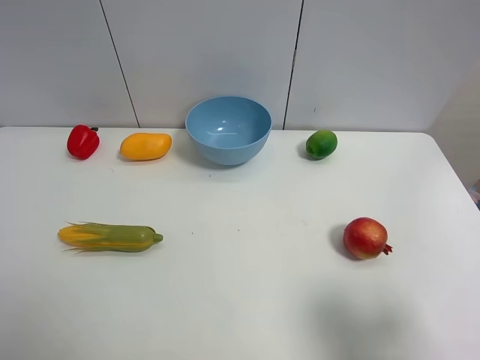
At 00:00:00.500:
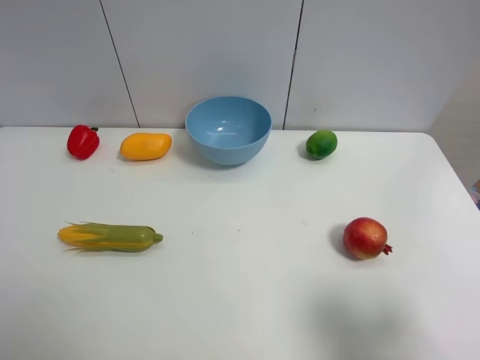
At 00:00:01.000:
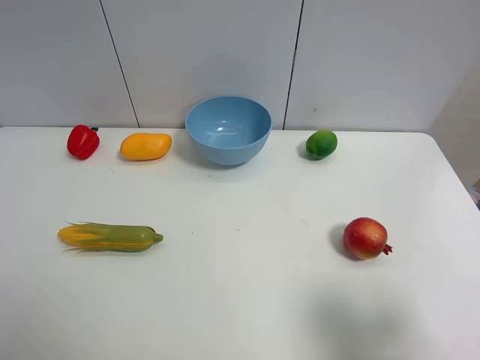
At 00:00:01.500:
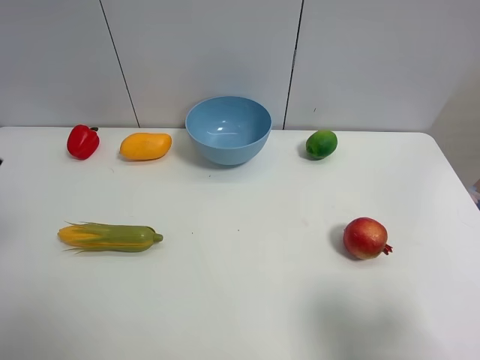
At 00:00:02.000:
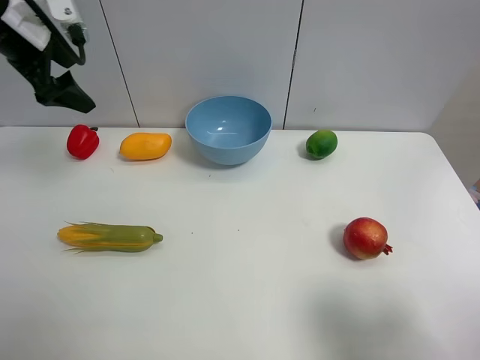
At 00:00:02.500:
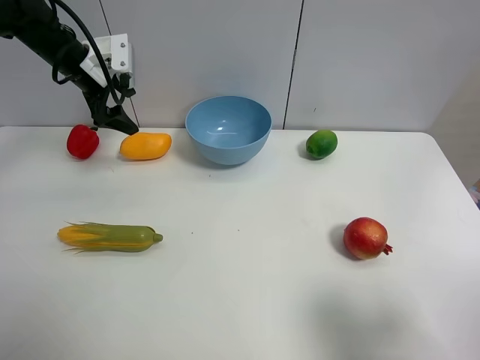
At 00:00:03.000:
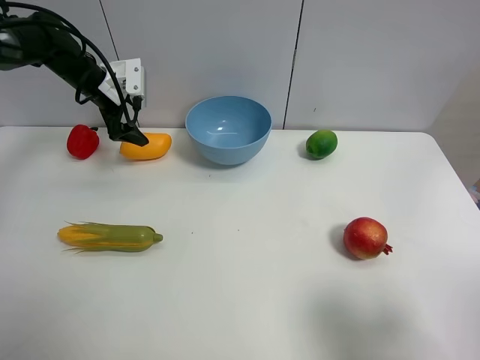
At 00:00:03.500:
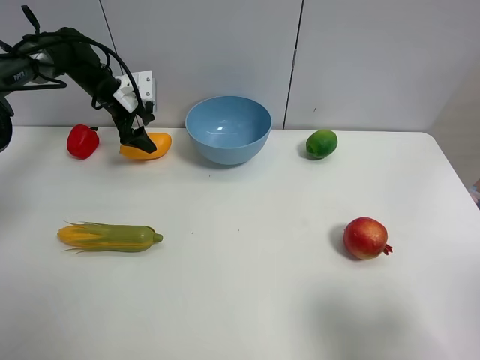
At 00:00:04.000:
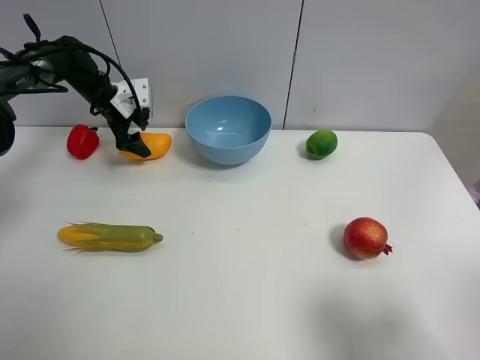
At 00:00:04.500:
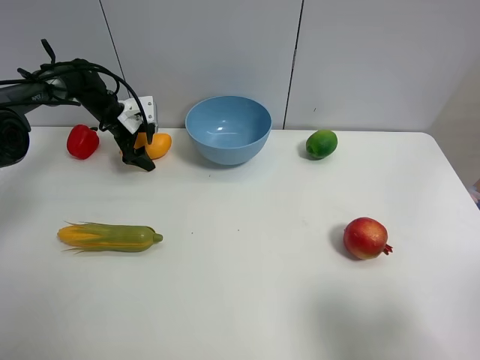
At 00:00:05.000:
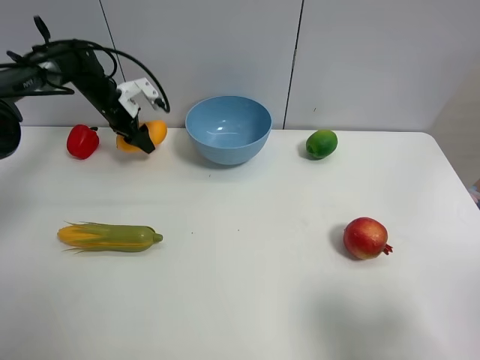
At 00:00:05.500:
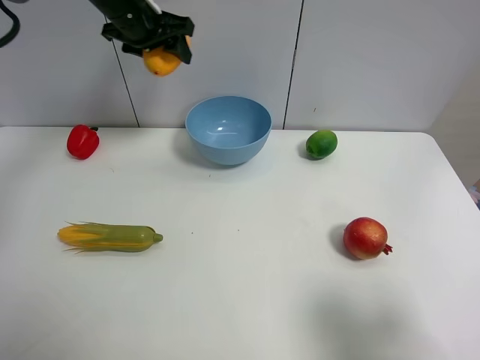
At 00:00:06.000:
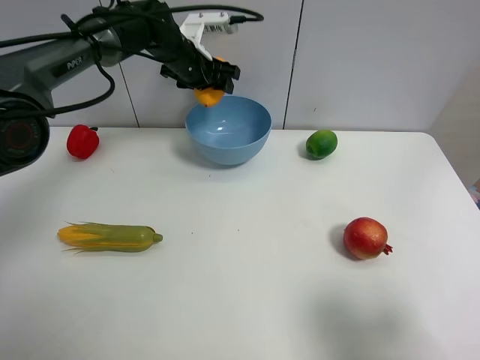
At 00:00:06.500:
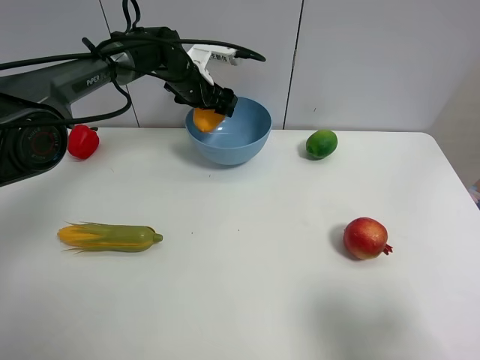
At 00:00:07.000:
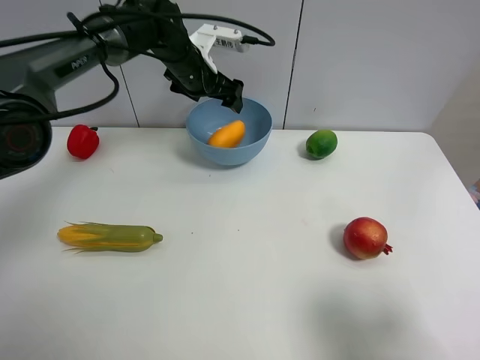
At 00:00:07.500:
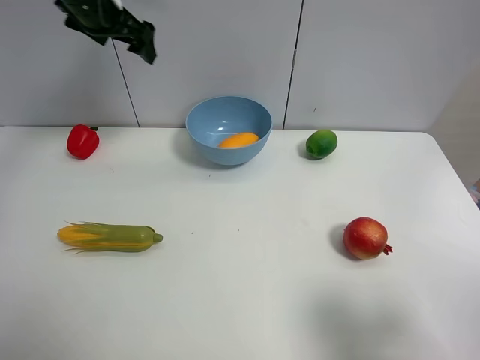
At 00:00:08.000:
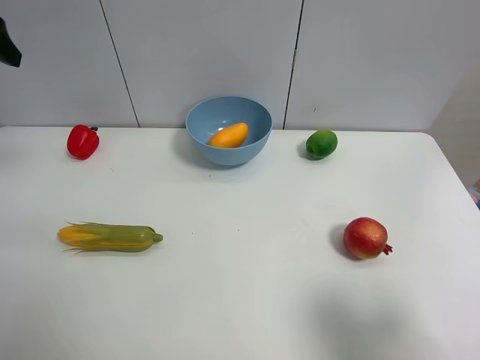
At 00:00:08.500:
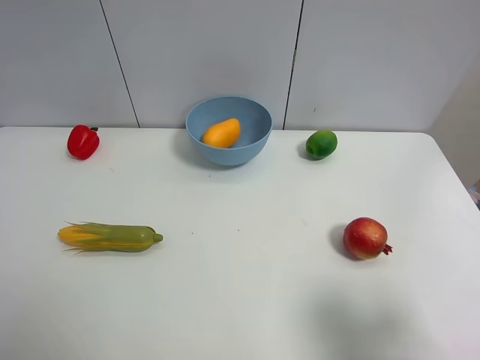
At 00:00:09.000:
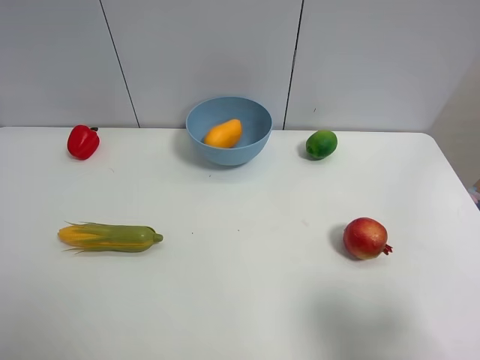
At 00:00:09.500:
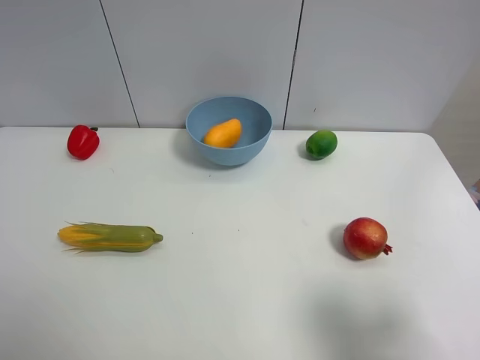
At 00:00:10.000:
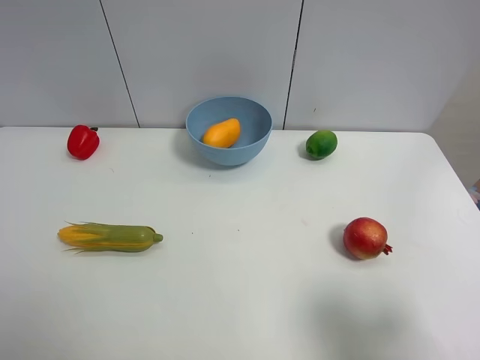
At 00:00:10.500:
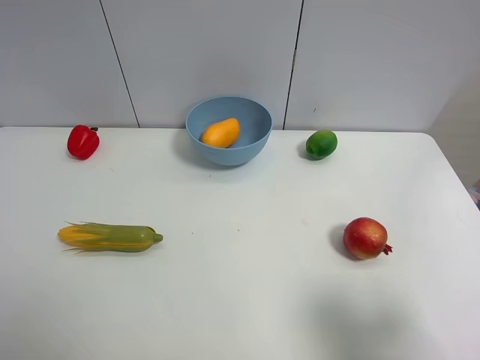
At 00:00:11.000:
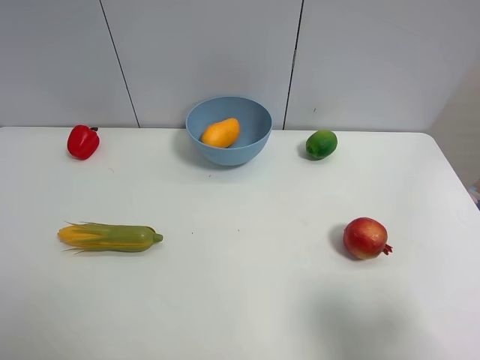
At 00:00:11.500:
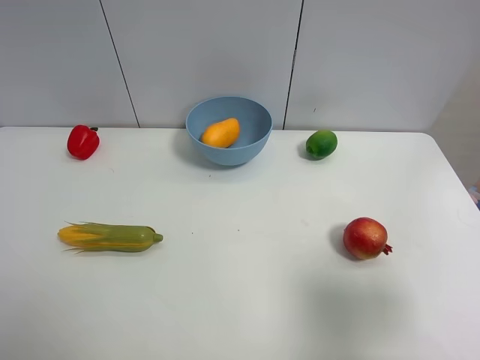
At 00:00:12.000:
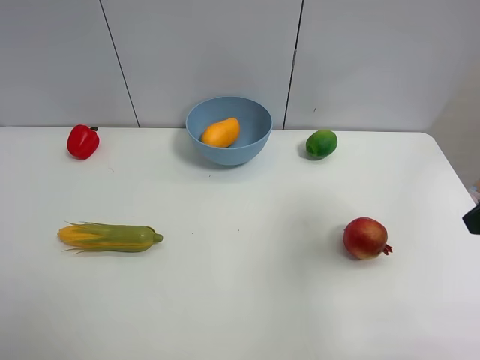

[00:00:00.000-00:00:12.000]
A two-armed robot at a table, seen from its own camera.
Task of the whole recording: Put the three fruits on the table into a bowl.
Step, 00:00:00.000 to 00:00:04.500: Grasp the mango with left gripper.
Step, 00:00:05.000 to 00:00:06.500: Place the mango in the blue bowl with left gripper.
00:00:00.000 to 00:00:02.000: The left gripper goes roughly 40 cm forward.
00:00:02.000 to 00:00:04.000: The left gripper heads downward and forward, covering approximately 25 cm.
00:00:04.000 to 00:00:06.000: The left gripper goes up and down, approximately 25 cm each way, reversing 2 times, and closes its fingers.
00:00:06.000 to 00:00:08.000: The left gripper moves to the left, backward and upward, roughly 35 cm, and opens its fingers.
00:00:08.000 to 00:00:10.000: The left gripper moves backward, some 30 cm.
00:00:10.000 to 00:00:12.000: The right gripper heads forward, covering some 15 cm.

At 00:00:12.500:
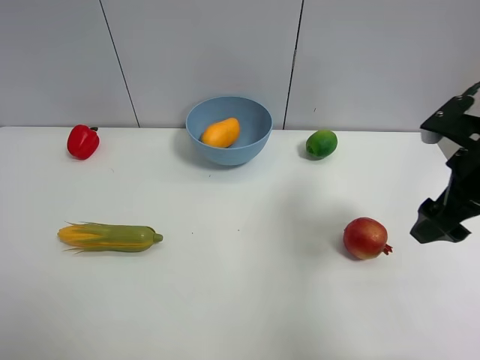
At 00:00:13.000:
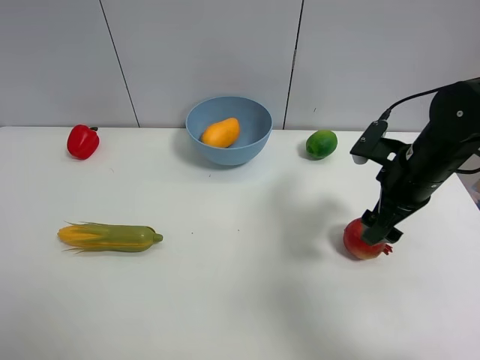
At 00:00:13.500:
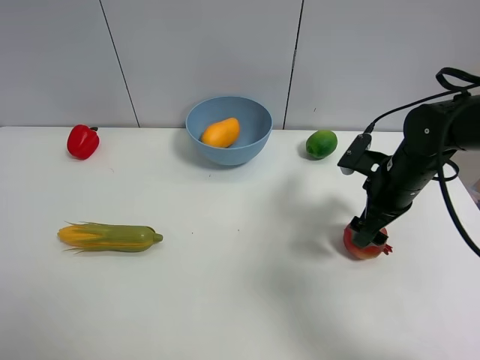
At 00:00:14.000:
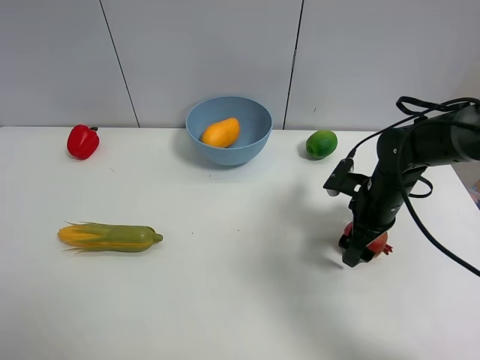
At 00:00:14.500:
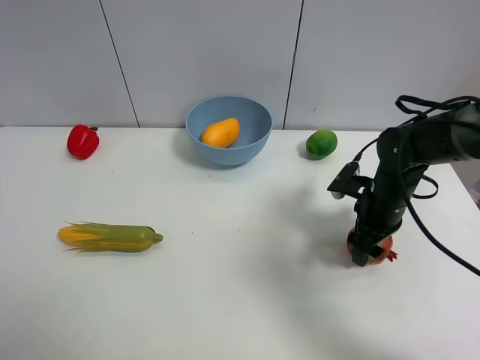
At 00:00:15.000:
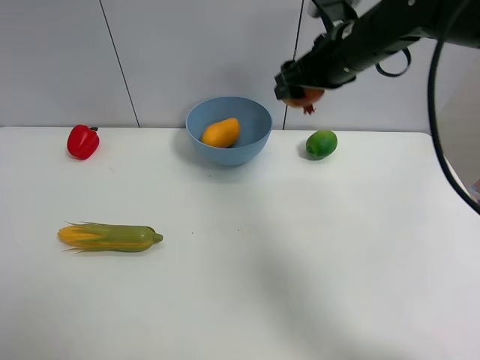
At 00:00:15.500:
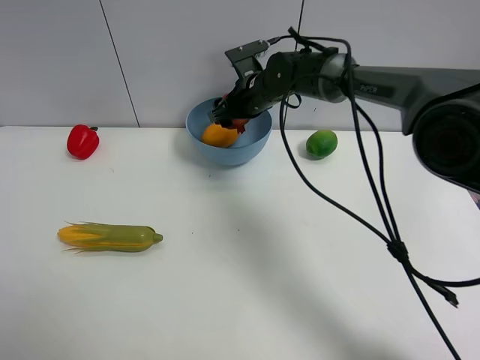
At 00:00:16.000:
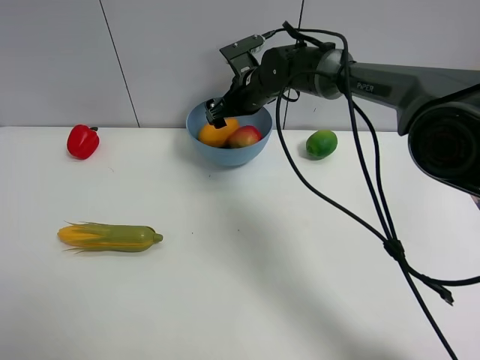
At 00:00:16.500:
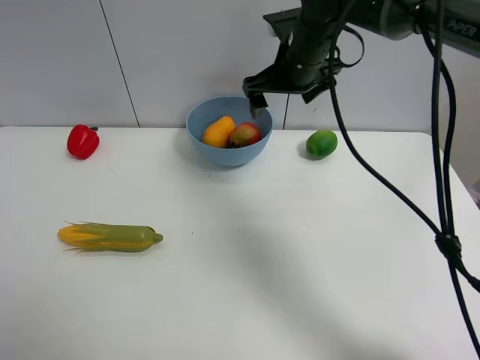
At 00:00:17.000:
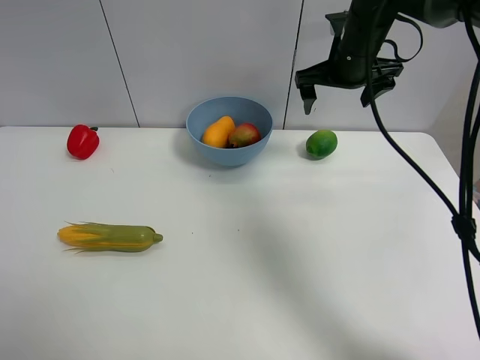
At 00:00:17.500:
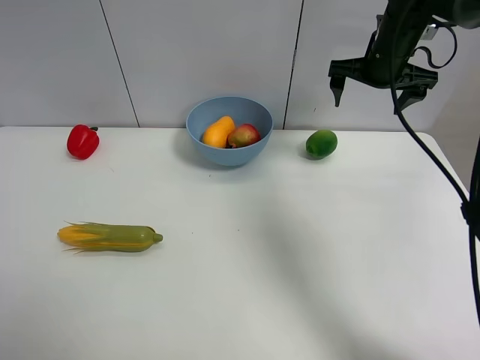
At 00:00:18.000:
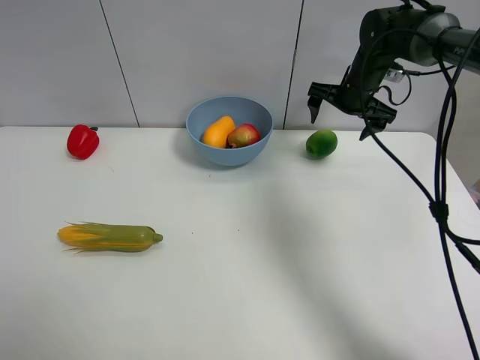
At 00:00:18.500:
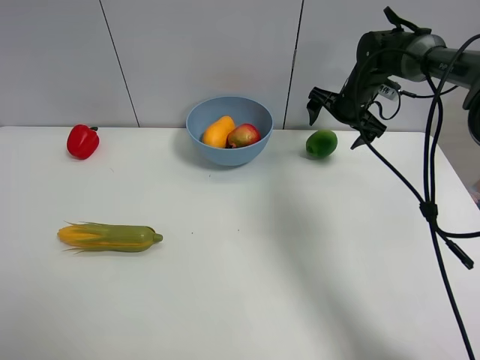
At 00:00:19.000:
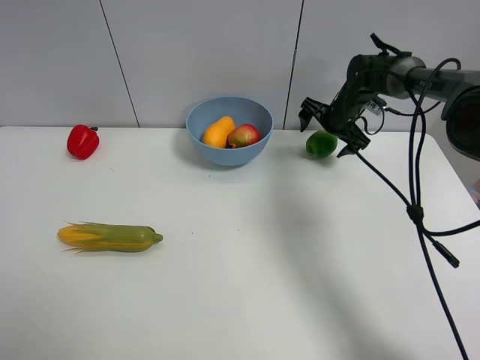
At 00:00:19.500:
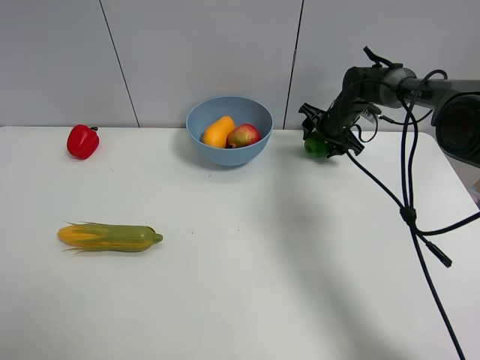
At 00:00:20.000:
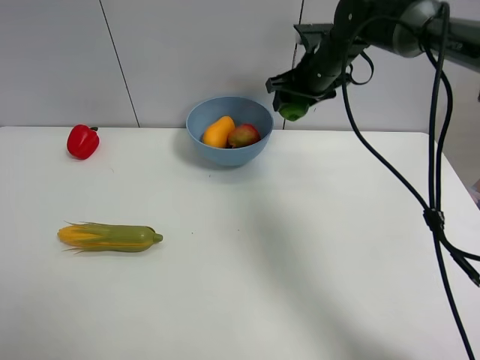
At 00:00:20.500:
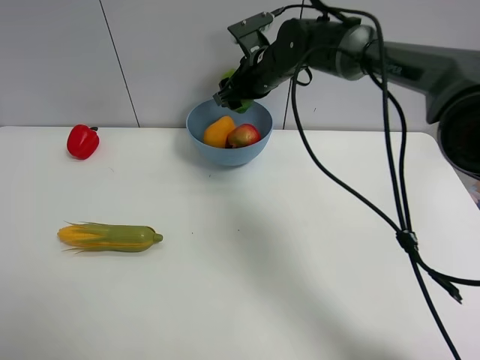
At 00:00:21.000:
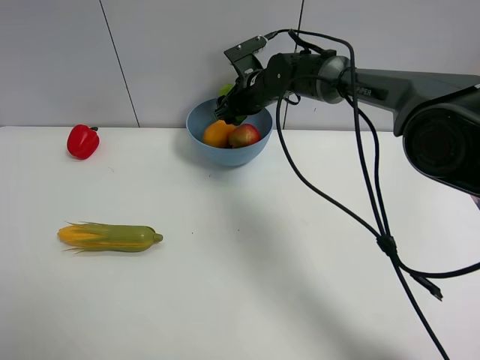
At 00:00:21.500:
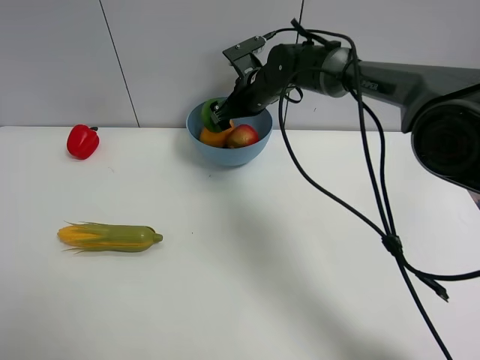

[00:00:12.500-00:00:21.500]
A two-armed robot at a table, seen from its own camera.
Task of the whole recording: Put the three fruits on the table into a bowl.
Step, 00:00:14.500 to 00:00:16.000: Place the pomegranate in the blue bowl with right gripper.
Step, 00:00:16.500 to 00:00:19.000: Grasp the green lemon with right gripper.
00:00:12.500 to 00:00:14.500: The right gripper heads downward and forward, covering about 15 cm, and closes its fingers.
00:00:14.500 to 00:00:17.000: The right gripper travels upward and forward by roughly 20 cm, travels to the left and back again, roughly 20 cm each way, and opens its fingers.
00:00:17.000 to 00:00:19.500: The right gripper is displaced downward and forward by about 20 cm, and closes.
00:00:19.500 to 00:00:21.500: The right gripper shifts about 20 cm to the left and upward, and opens up.

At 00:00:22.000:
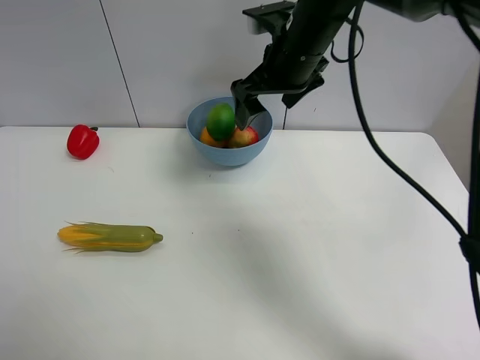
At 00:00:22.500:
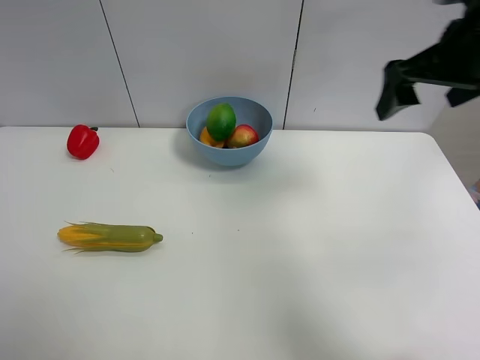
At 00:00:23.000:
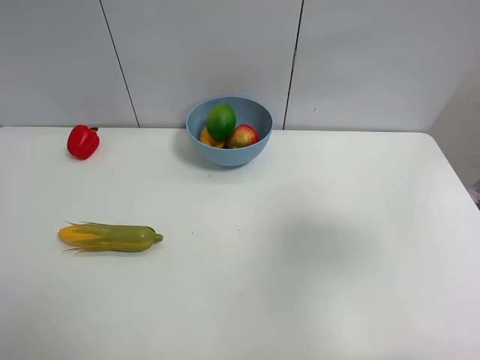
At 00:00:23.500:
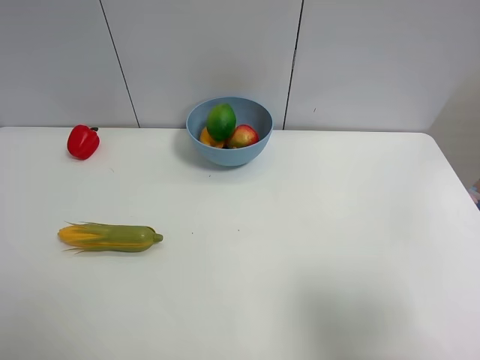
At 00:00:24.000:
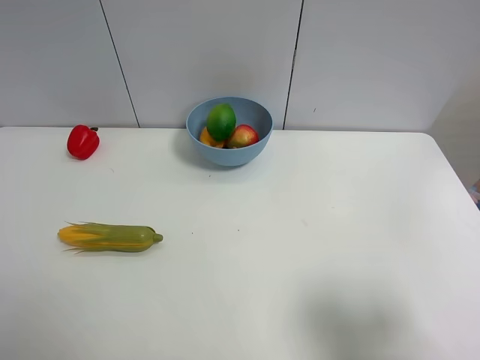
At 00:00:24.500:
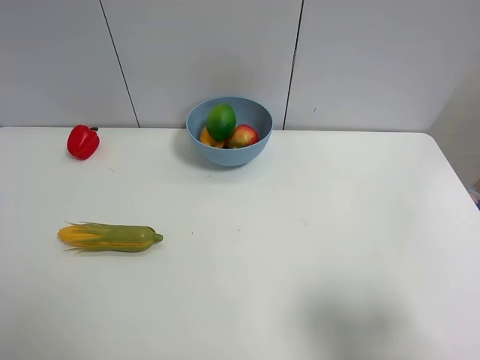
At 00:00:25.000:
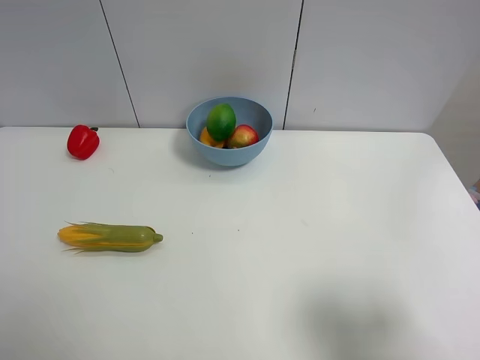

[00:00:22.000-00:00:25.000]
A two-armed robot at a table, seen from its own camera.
Task of the whole recording: Put the three fruits on the table into a bowl.
00:00:22.000 to 00:00:23.500: The right gripper moves backward and to the right, about 40 cm.
